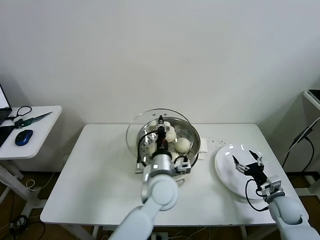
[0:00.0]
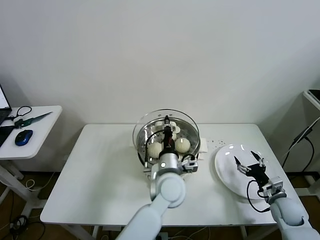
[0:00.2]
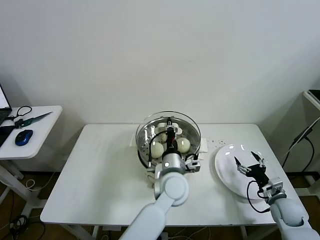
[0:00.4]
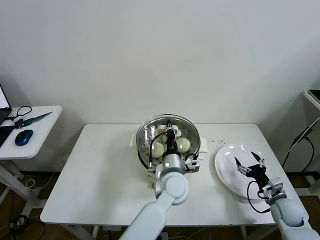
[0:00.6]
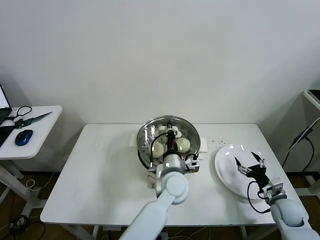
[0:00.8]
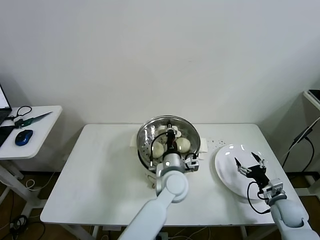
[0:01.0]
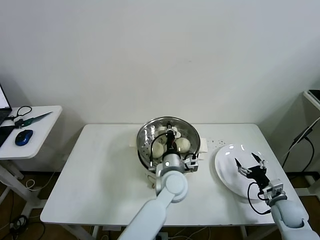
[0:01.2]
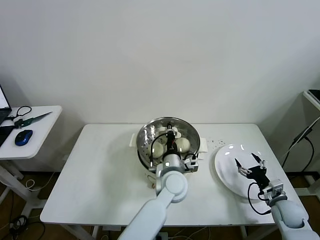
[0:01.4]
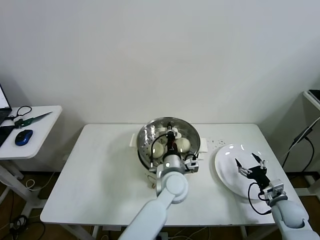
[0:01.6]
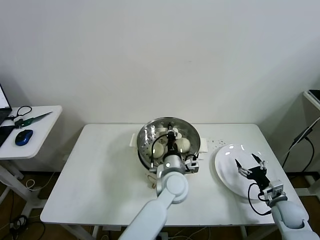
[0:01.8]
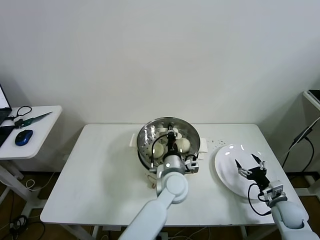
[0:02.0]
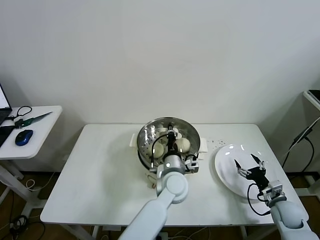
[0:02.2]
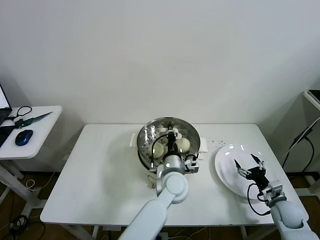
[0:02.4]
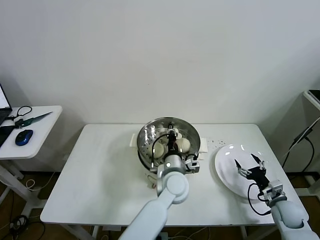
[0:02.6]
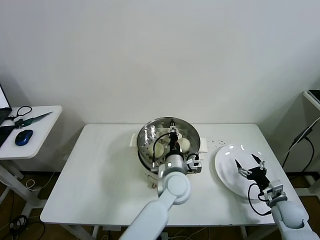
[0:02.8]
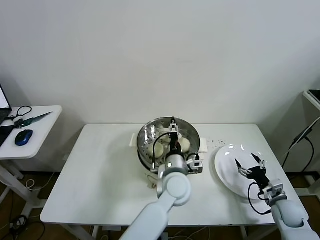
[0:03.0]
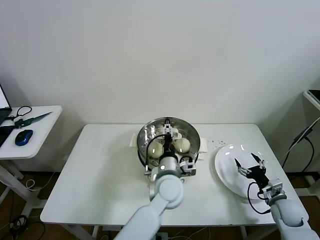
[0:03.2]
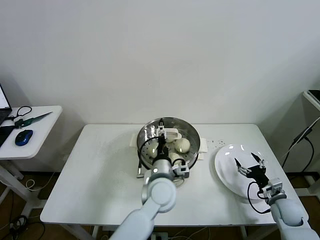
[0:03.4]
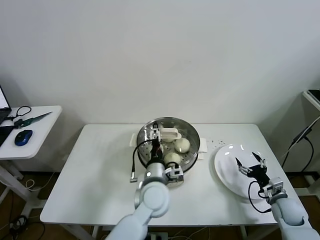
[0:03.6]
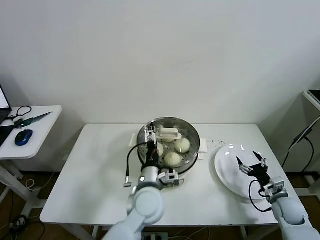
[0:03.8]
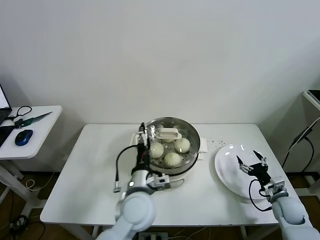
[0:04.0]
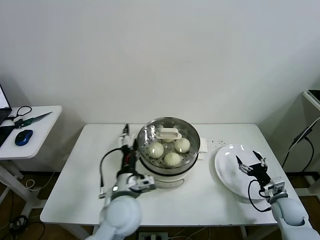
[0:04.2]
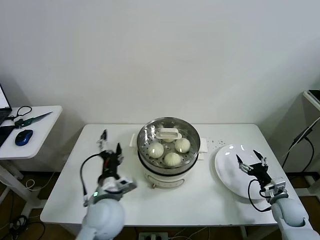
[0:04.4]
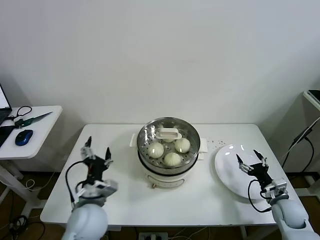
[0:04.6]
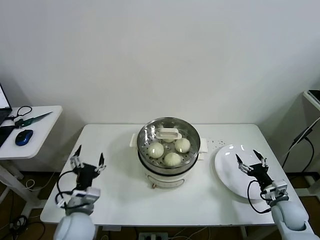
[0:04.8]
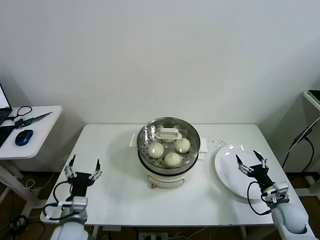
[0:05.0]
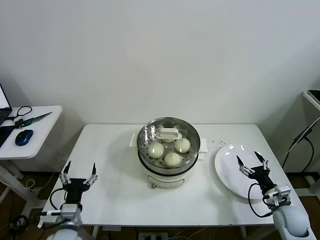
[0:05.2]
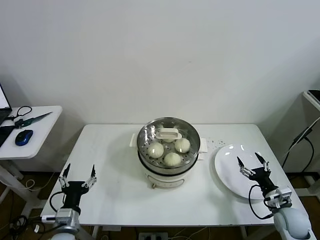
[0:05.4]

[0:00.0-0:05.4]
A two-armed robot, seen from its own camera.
Task of the whole recording: take steamed baozi put them in steamer then cover it.
Step, 0:00.0 to 0:03.0: Place the pot lid on the steamer with left gripper.
0:00.0 to 0:01.4: The left gripper is displaced downward by some 5 cm.
0:01.4 to 0:02.8: The two grippers keep their place.
0:02.8 to 0:04.0: The left gripper goes some 10 cm to the left and backward, and opens up.
0:04.0 to 0:05.4: The left gripper travels to the left and downward by some 25 cm.
